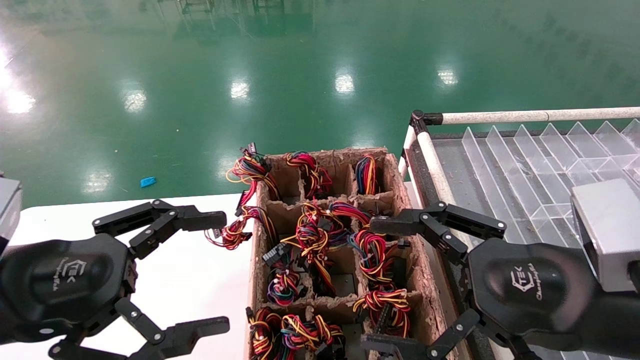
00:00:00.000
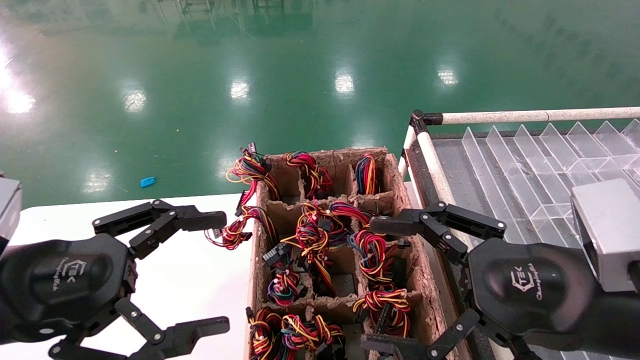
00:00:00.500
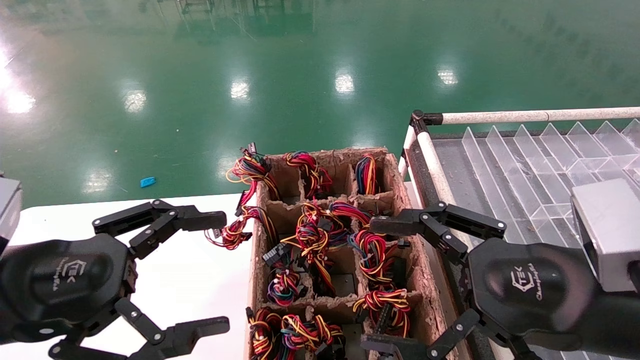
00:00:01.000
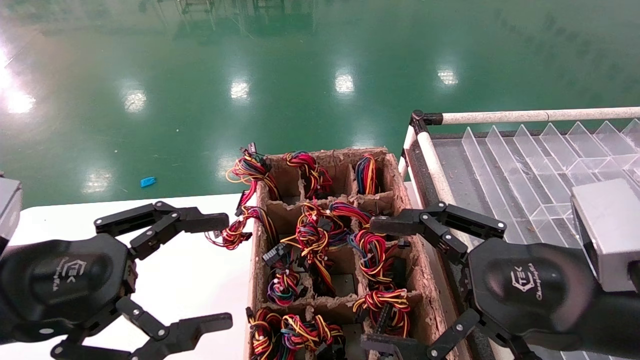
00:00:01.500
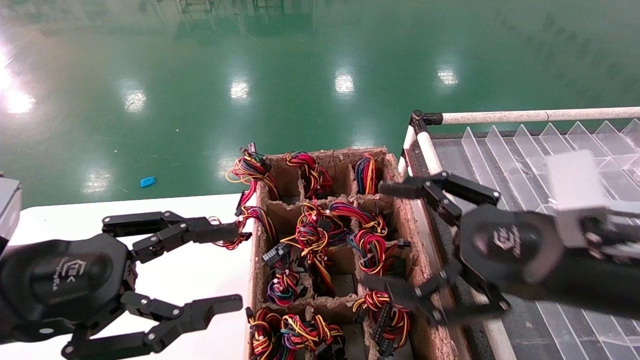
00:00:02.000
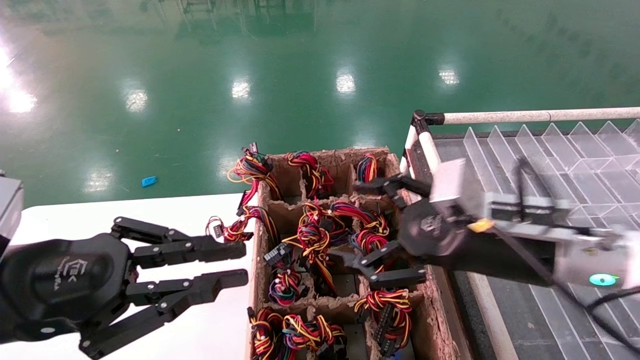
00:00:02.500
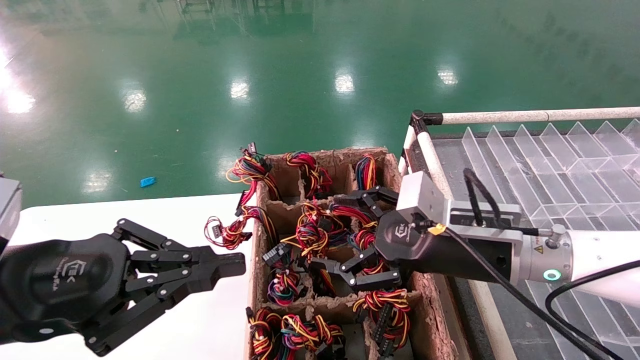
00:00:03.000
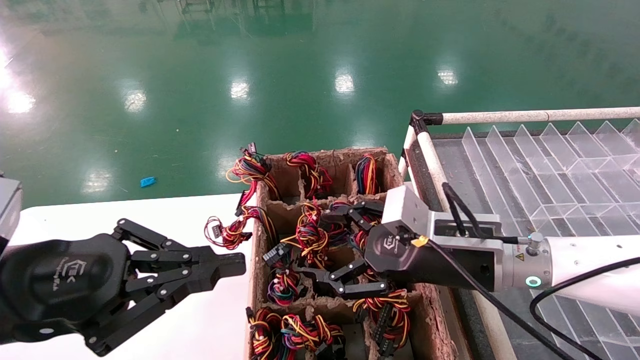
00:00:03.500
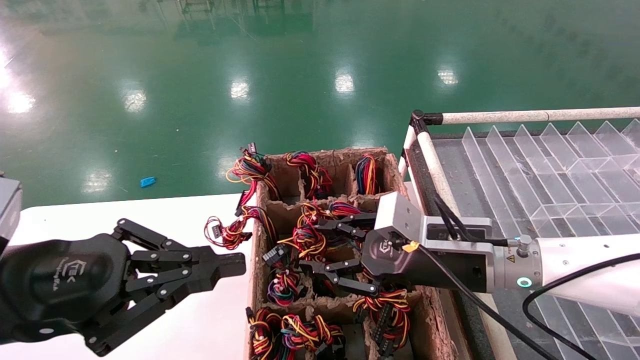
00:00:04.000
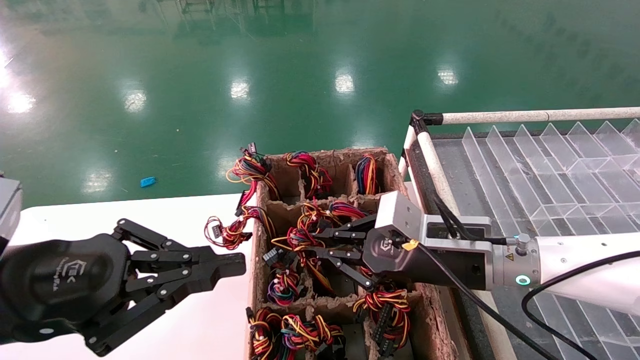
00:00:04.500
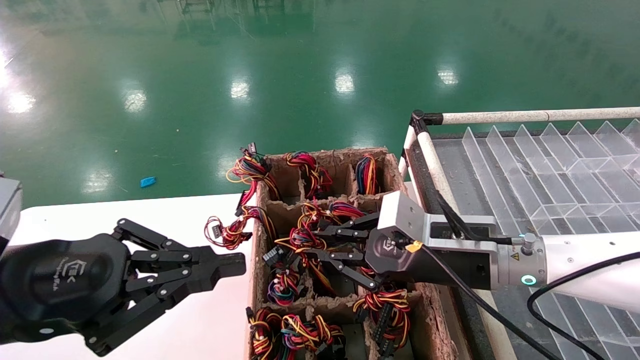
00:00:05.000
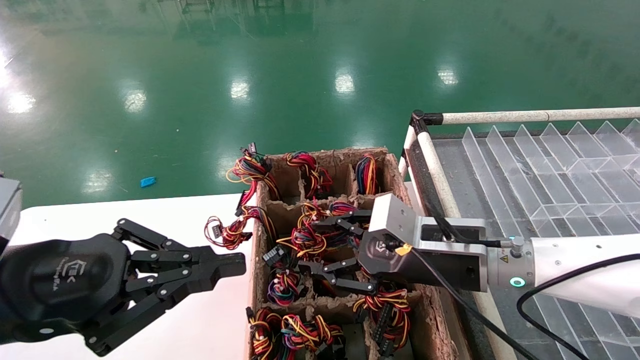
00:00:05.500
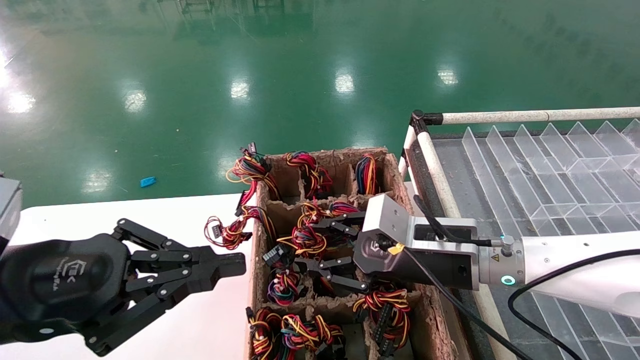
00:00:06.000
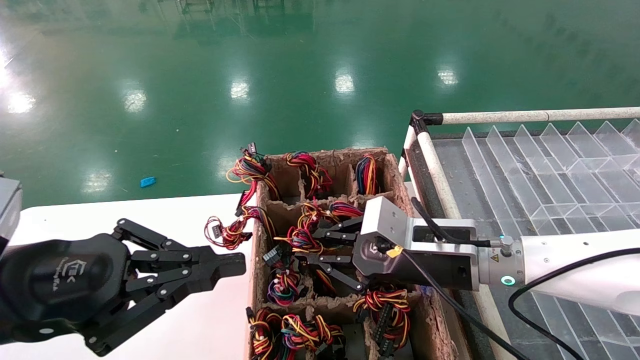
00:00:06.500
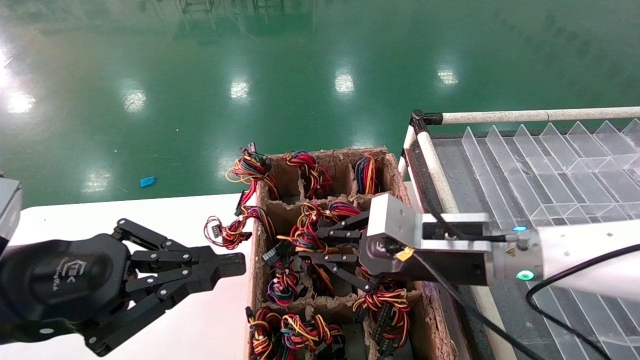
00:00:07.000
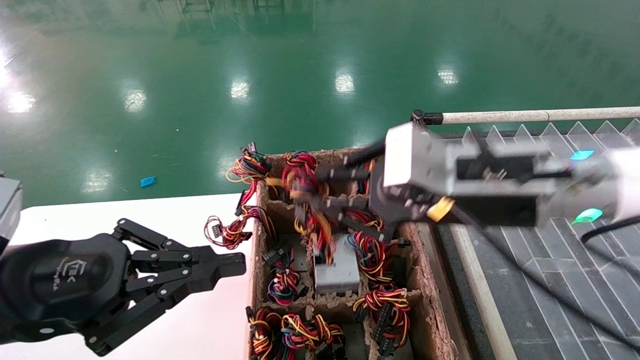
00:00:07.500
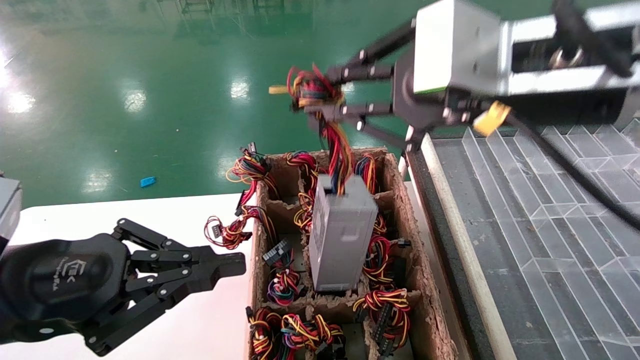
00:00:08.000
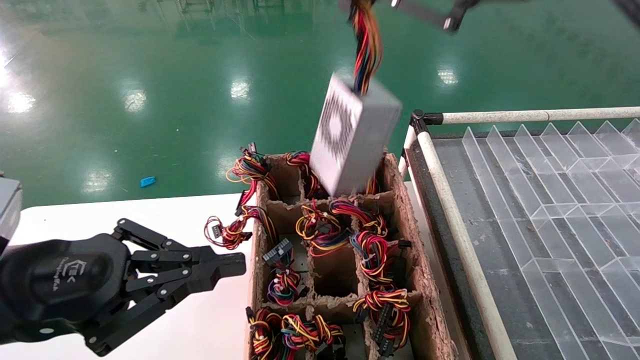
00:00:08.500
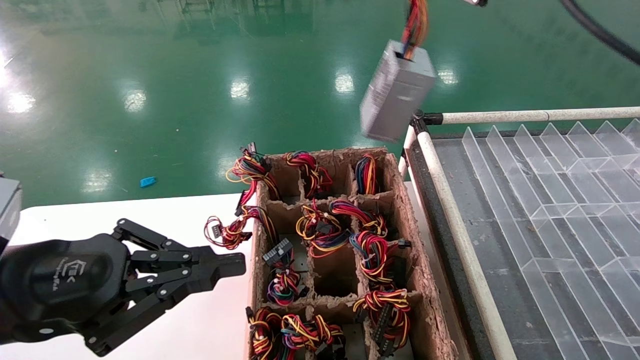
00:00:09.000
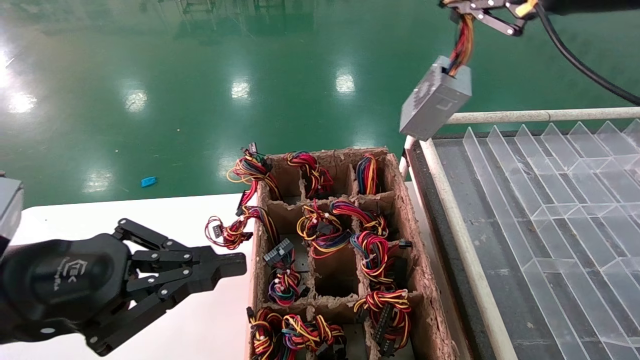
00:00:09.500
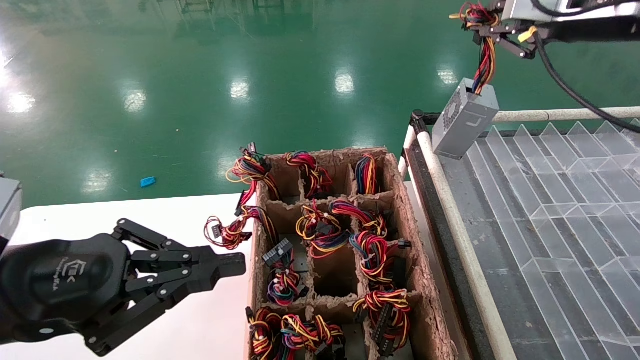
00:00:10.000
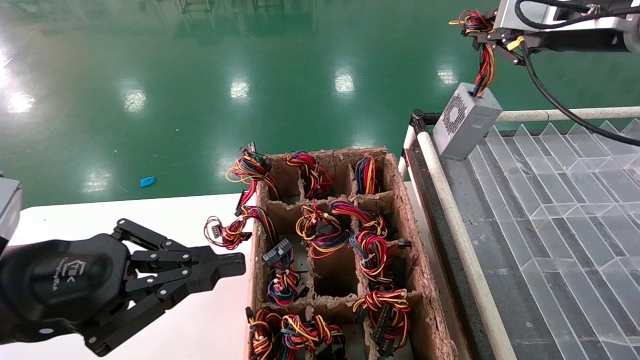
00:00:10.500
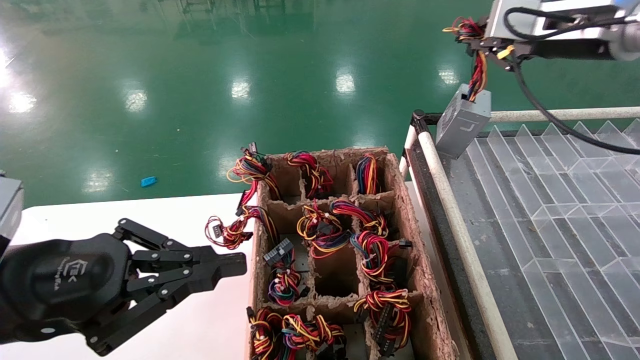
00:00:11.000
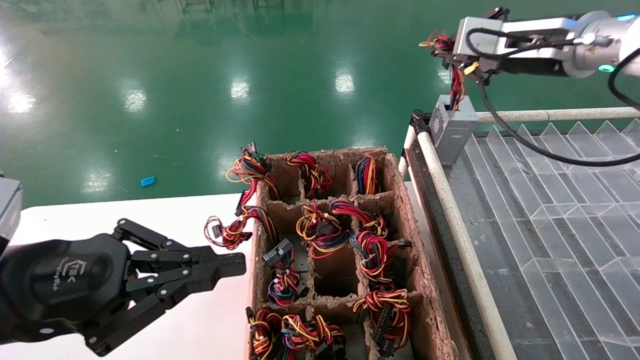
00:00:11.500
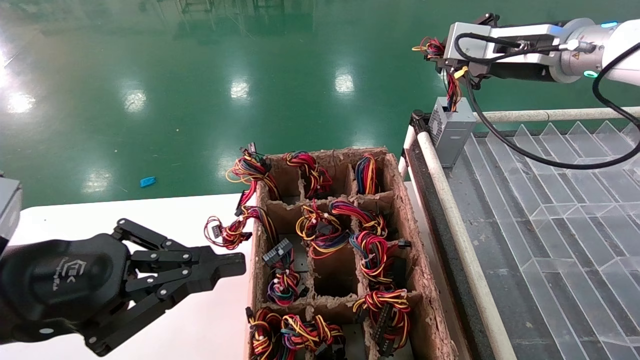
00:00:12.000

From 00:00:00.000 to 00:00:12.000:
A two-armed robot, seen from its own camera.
Step, from 00:00:02.000 to 00:00:06.500: Grab the main unit power supply from the containment box.
From 00:00:00.000 to 00:00:02.000: The grippers make only small movements.
From 00:00:02.000 to 00:00:04.000: The left gripper closes up. Meanwhile the right gripper goes some 15 cm forward, to the left and downward, and closes up.
From 00:00:04.000 to 00:00:06.000: The right gripper closes, then opens again.
From 00:00:06.000 to 00:00:08.000: The right gripper shifts roughly 25 cm upward and backward, and closes its fingers.
From 00:00:08.000 to 00:00:10.000: The right gripper moves to the right, forward and upward, approximately 20 cm.
From 00:00:10.000 to 00:00:12.000: The right gripper travels forward by some 5 cm.

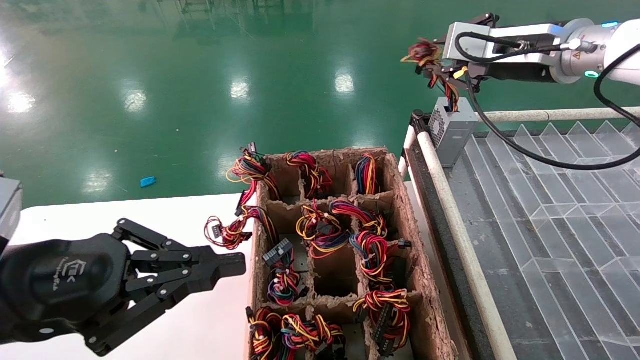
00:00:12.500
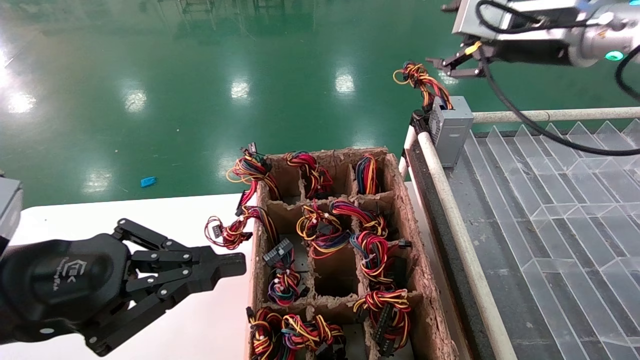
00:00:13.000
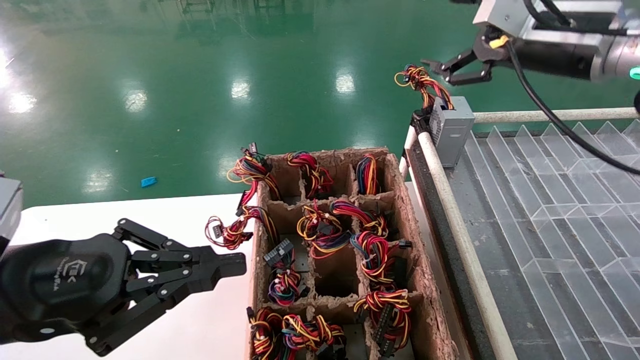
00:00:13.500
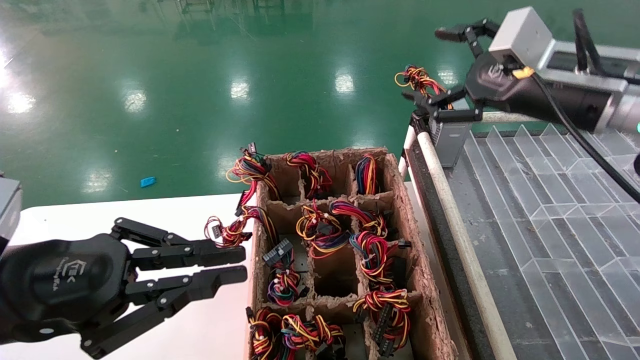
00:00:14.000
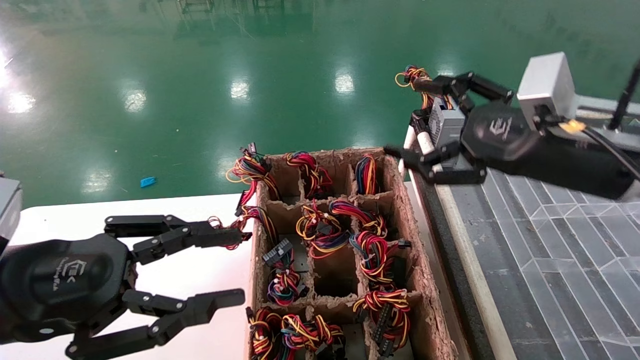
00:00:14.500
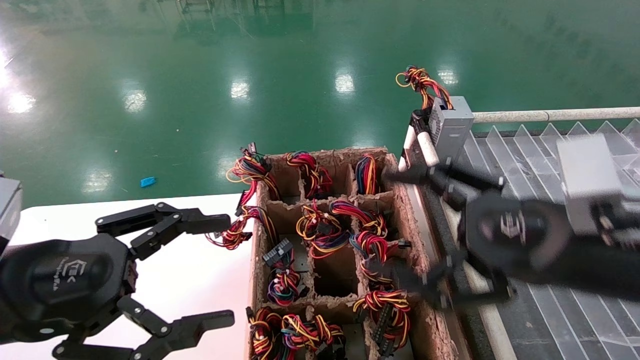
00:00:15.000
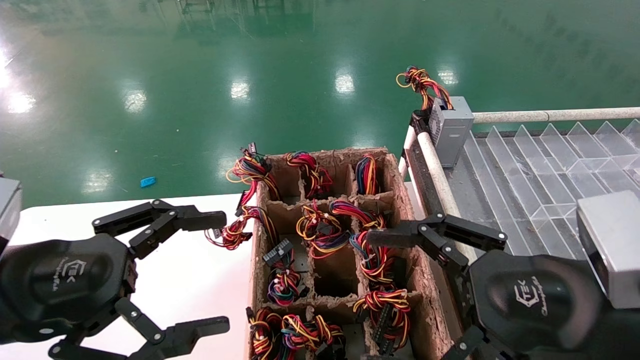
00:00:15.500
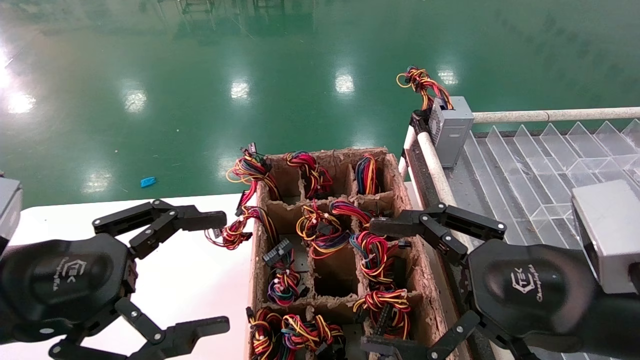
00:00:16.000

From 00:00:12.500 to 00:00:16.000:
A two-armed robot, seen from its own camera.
From 00:00:12.500 to 00:00:14.500: The right gripper is displaced backward and downward by approximately 15 cm, and opens its fingers.
From 00:00:14.500 to 00:00:16.000: The right gripper shifts roughly 15 cm backward and downward. The left gripper opens up.
